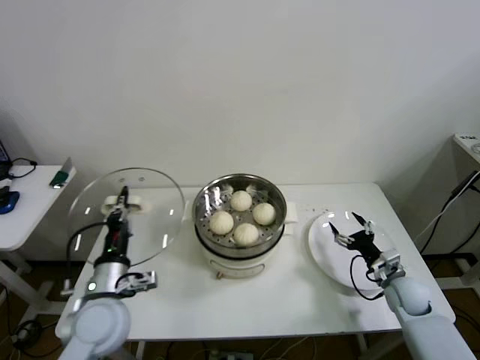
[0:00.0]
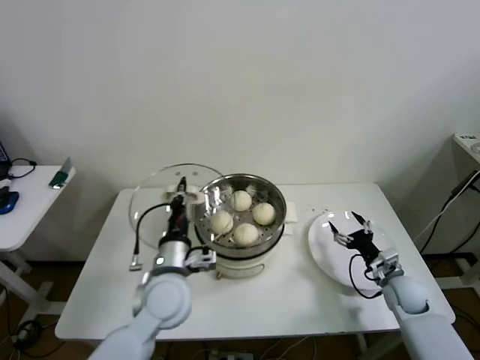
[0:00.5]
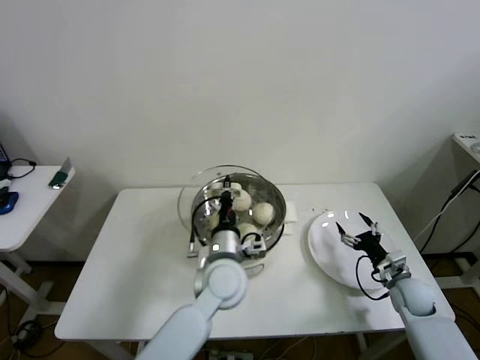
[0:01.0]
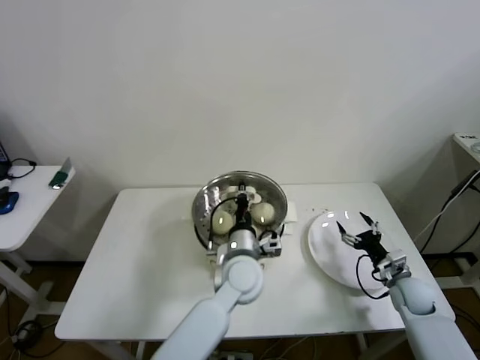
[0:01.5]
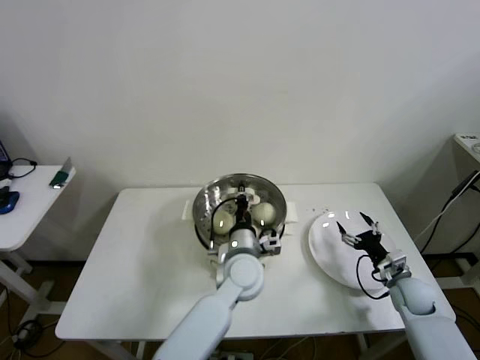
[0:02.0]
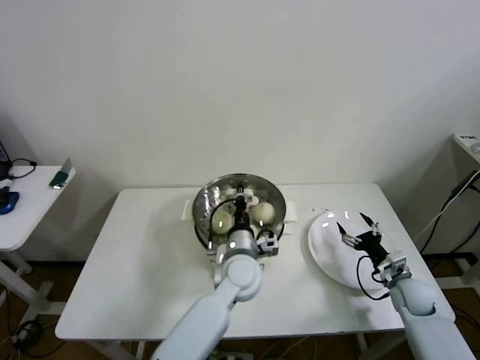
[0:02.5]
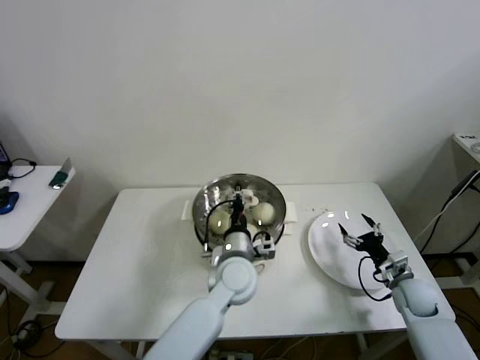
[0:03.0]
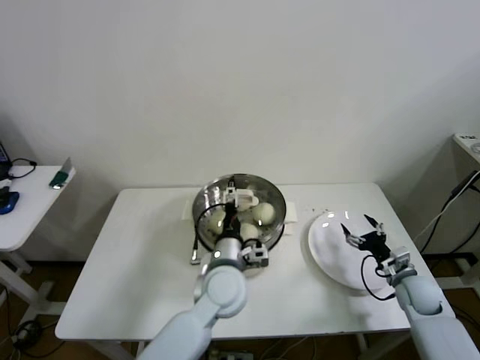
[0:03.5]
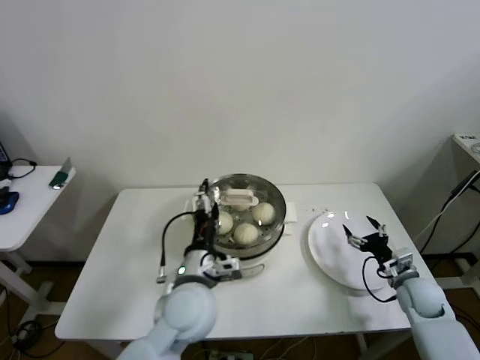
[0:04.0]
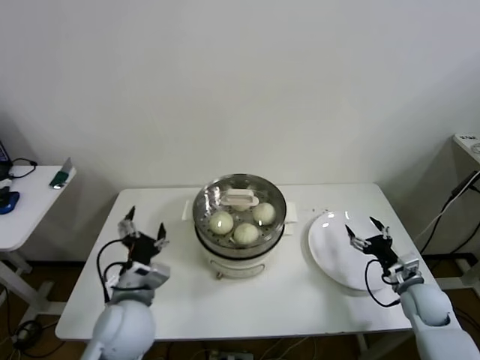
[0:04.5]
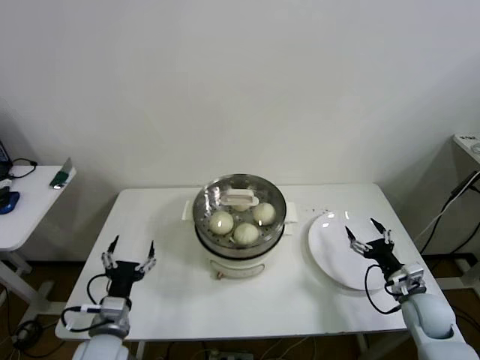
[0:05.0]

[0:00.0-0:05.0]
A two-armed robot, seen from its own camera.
Step, 0:00.0 to 0:03.5: Place the pot lid on the steamer with left gripper.
0:00.0 to 0:02.5: The left gripper travels to the right and forward by some 30 cm.
0:02.5 to 0:05.0: The left gripper moves to the left and backward, roughly 30 cm, and opens up. Meanwhile the right gripper changes place by roughly 5 cm.
